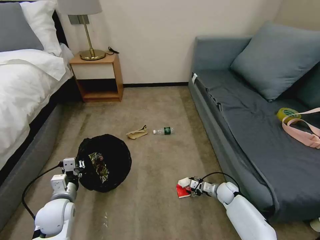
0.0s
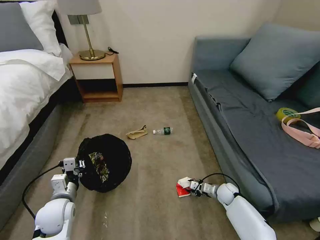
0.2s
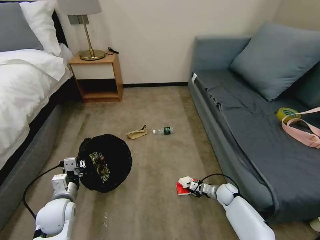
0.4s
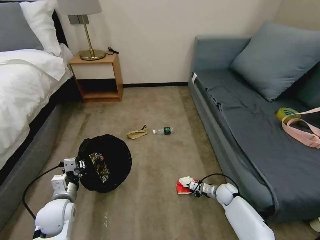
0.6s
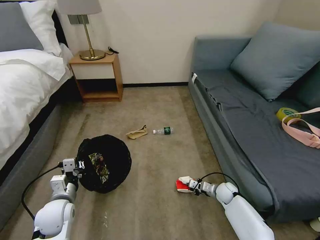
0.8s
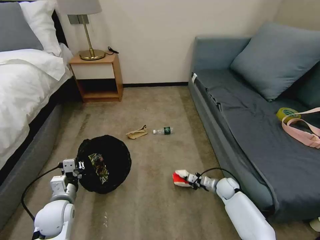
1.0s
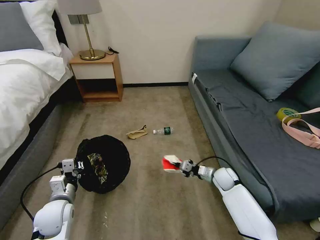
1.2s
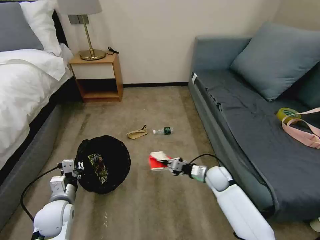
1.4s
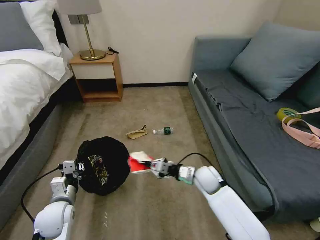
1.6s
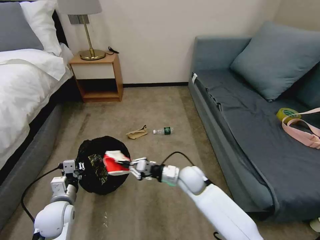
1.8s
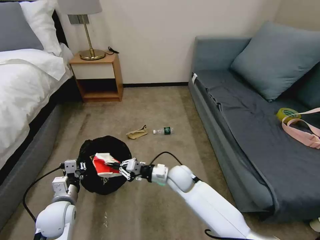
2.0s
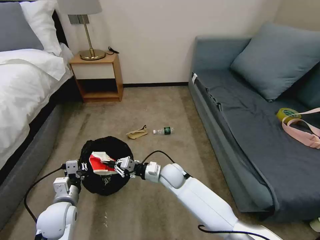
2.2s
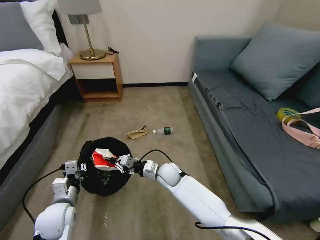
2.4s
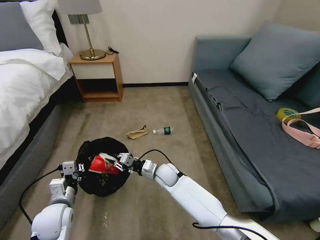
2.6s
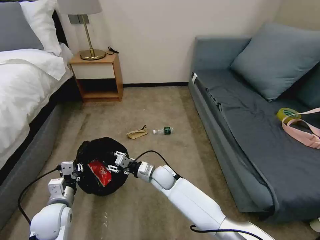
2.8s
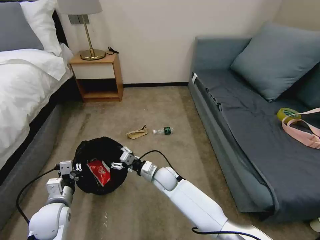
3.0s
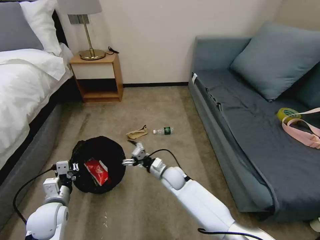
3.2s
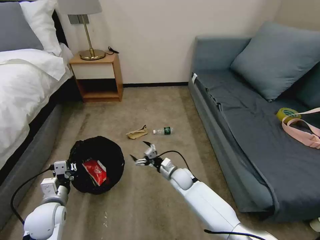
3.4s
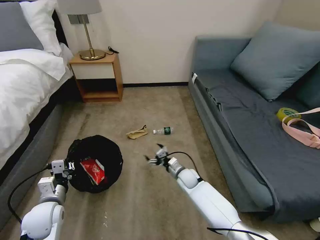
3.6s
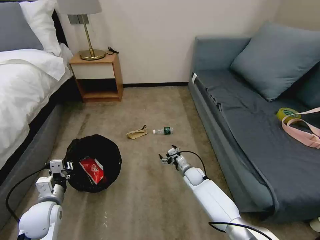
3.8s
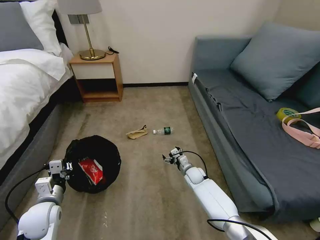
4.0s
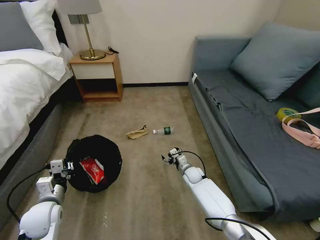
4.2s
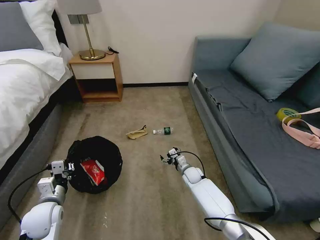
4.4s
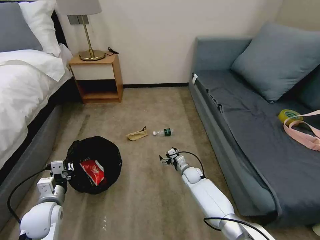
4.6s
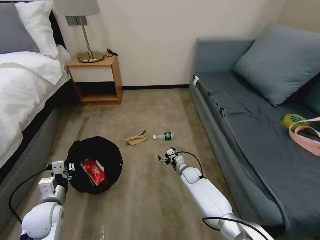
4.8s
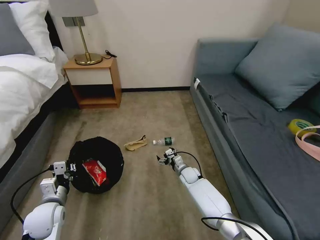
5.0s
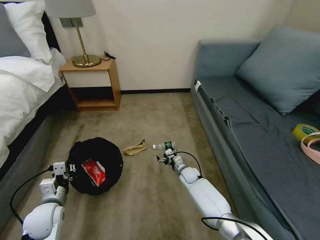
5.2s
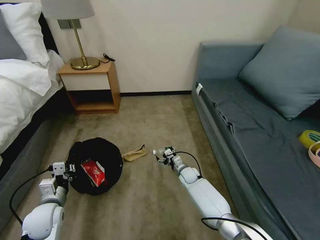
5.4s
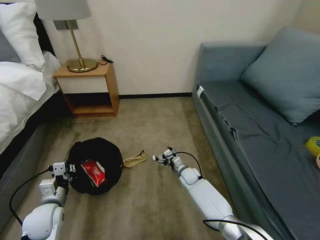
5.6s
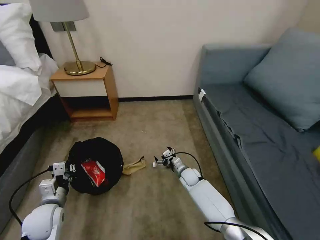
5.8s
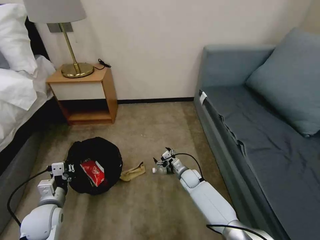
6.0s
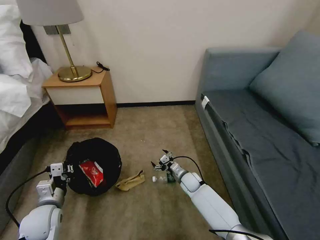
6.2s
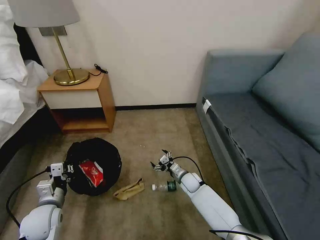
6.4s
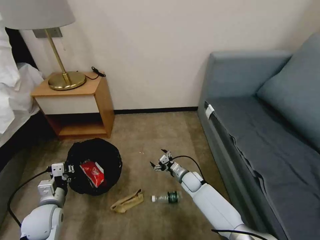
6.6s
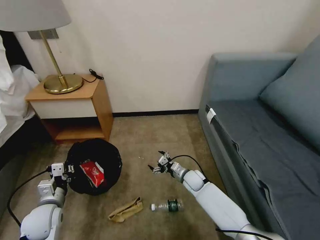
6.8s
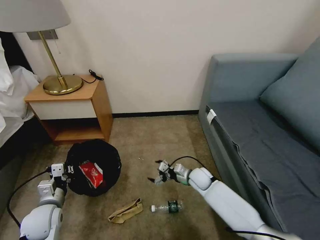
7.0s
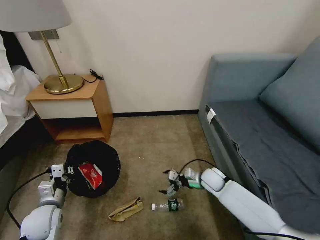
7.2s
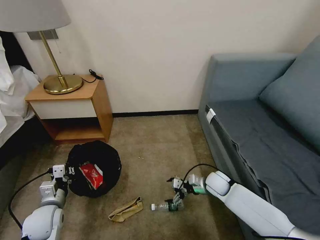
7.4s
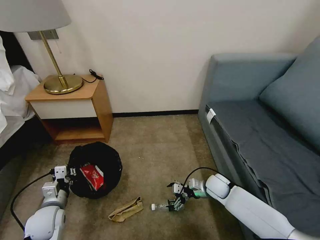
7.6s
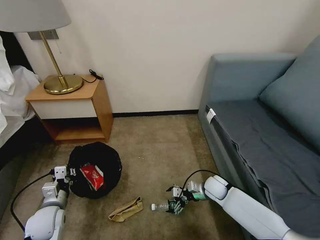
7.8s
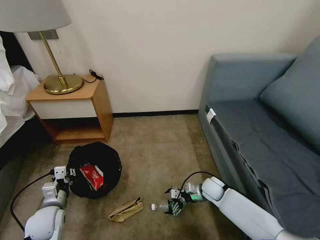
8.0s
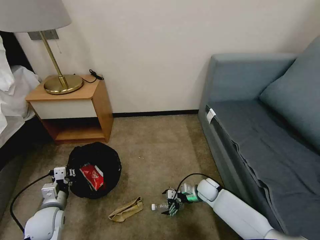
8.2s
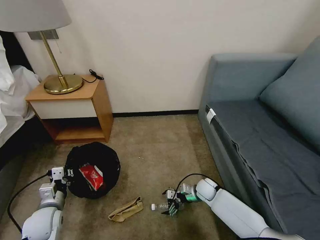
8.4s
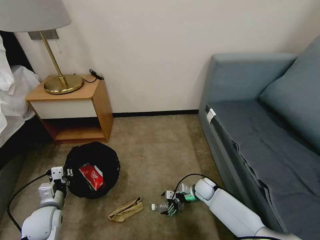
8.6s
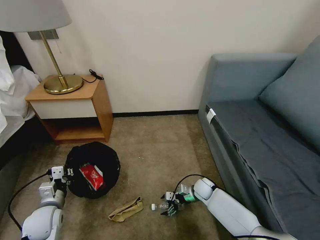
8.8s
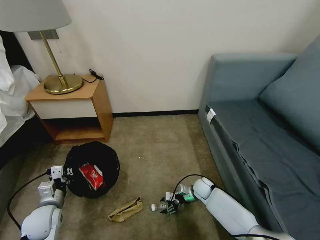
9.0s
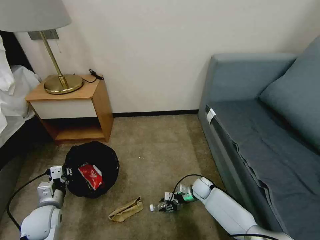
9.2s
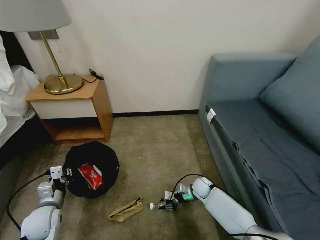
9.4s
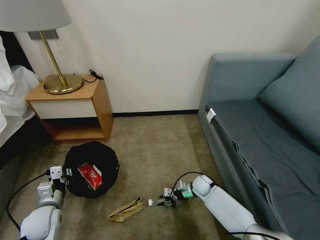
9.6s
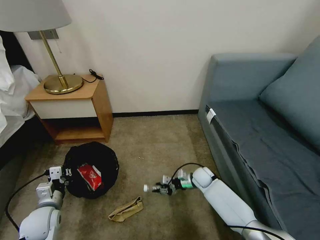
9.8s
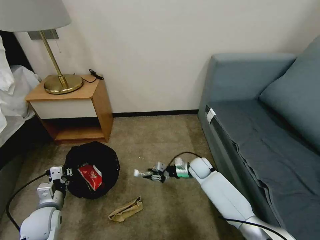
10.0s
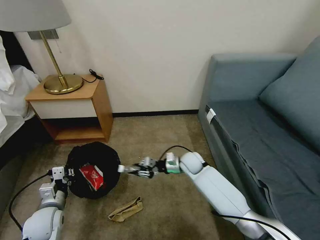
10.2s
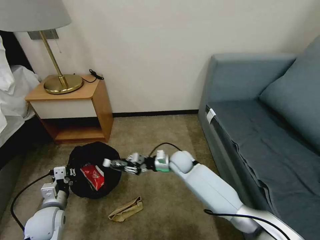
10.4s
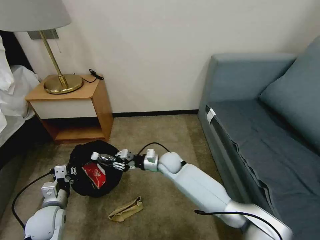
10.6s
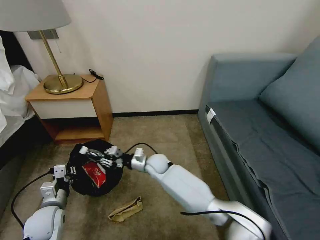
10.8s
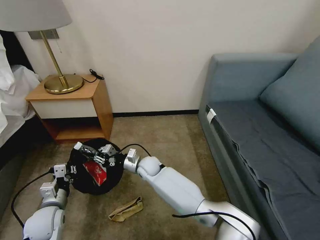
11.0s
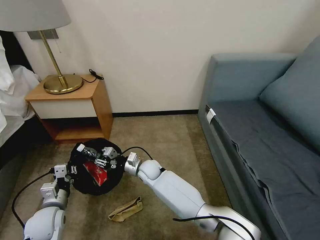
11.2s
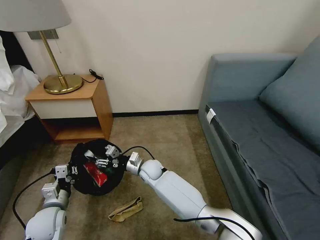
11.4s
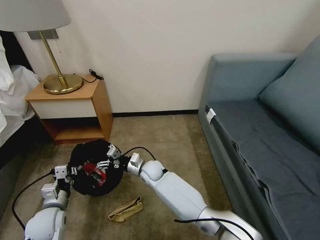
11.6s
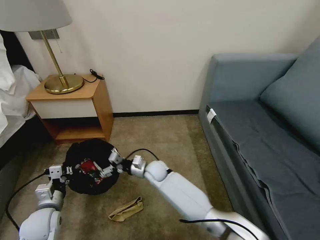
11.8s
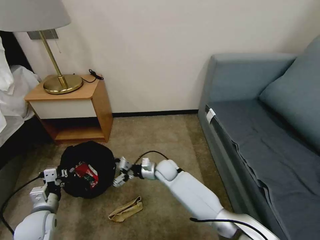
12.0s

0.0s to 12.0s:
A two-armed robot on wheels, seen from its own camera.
Task of the whole recording: Pick up the trash bin, then pick up the garbage on the floor and place it into the trash bin.
0.0s to 1.6s: The right gripper travels upward and to the left by about 20 cm, and closes up.
1.6s to 3.0s: The right gripper travels to the left by approximately 15 cm, and opens up.
3.0s to 4.4s: The right gripper shifts approximately 20 cm to the right, downward and forward.
6.0s to 7.6s: The right gripper heads to the right, upward and backward, covering approximately 10 cm.
7.6s to 9.0s: The right gripper is displaced downward by roughly 10 cm, and closes.
9.0s to 10.4s: The right gripper shifts some 20 cm upward and to the left, and closes its fingers.
10.4s to 12.0s: The right gripper is displaced to the left by roughly 5 cm, and opens.

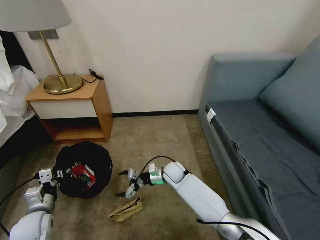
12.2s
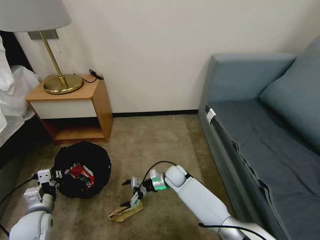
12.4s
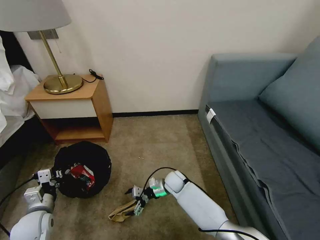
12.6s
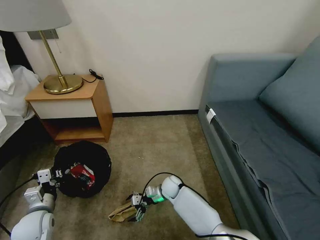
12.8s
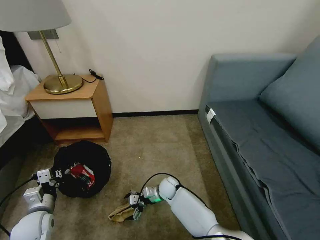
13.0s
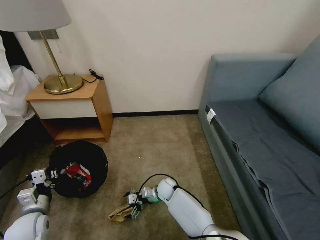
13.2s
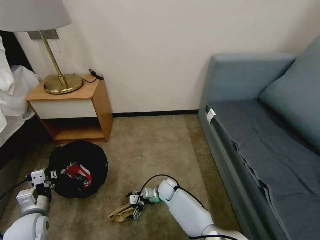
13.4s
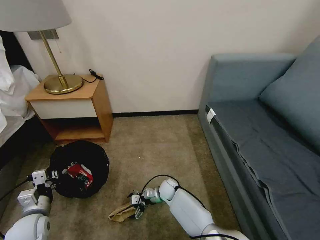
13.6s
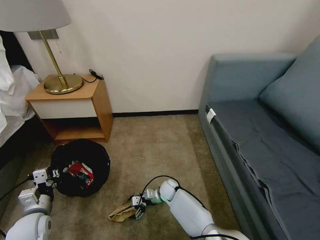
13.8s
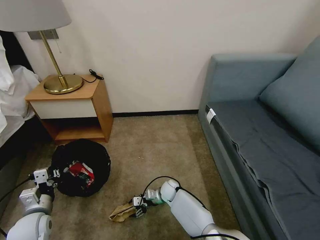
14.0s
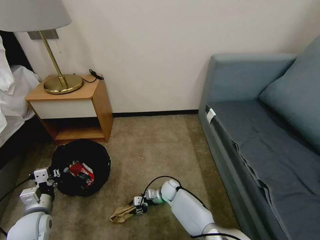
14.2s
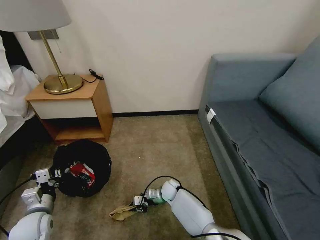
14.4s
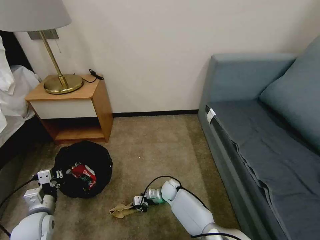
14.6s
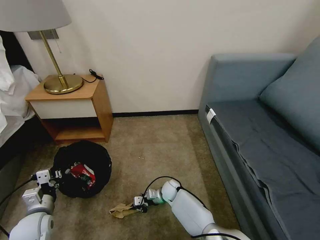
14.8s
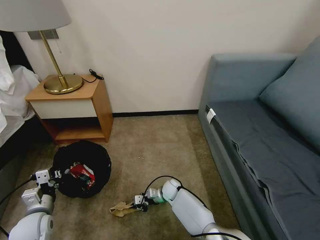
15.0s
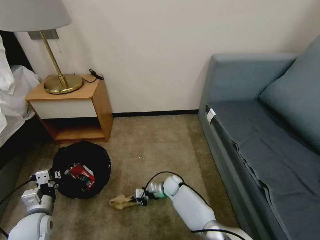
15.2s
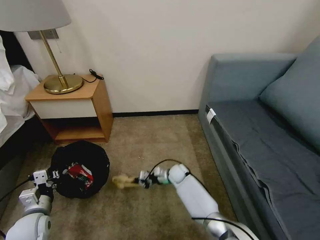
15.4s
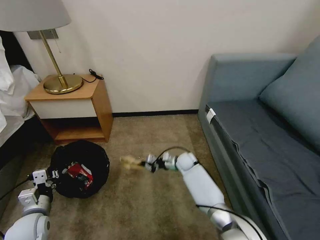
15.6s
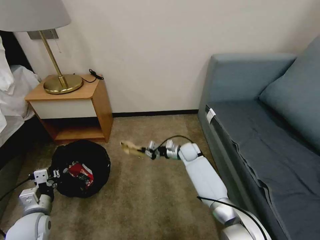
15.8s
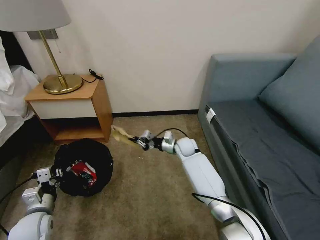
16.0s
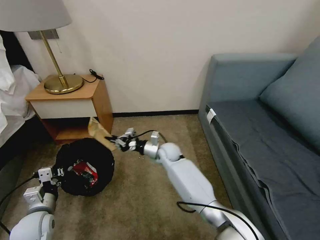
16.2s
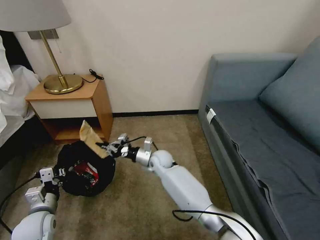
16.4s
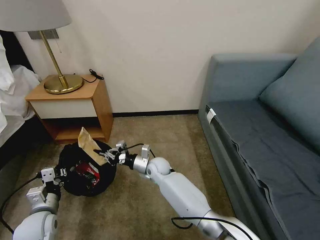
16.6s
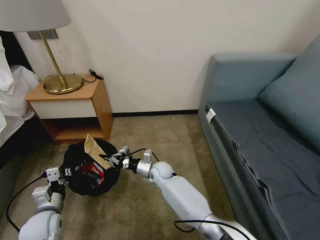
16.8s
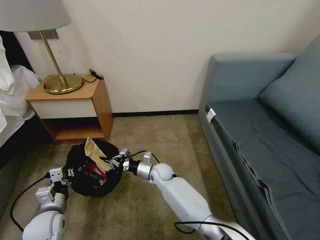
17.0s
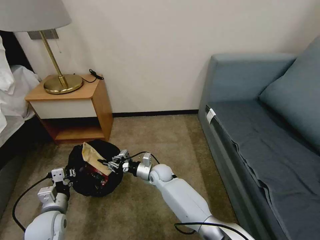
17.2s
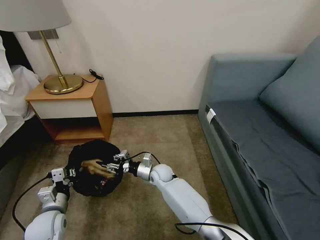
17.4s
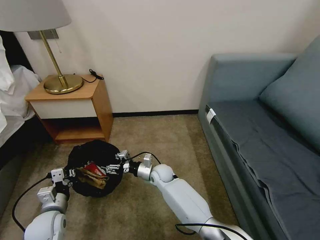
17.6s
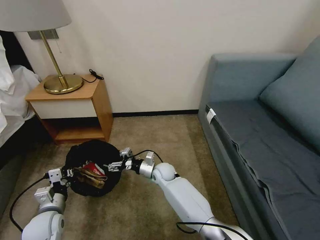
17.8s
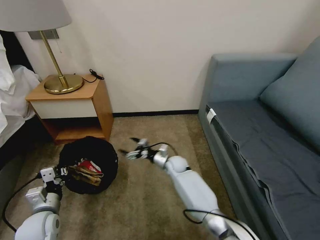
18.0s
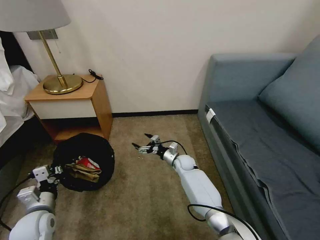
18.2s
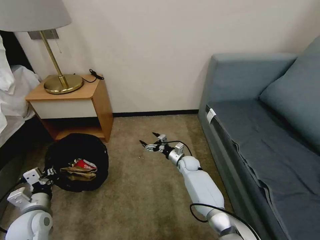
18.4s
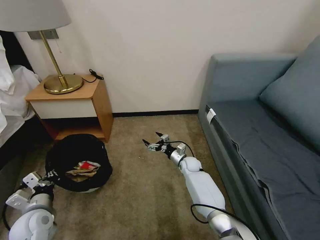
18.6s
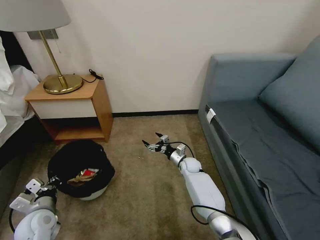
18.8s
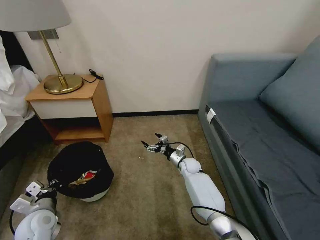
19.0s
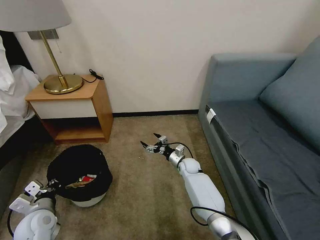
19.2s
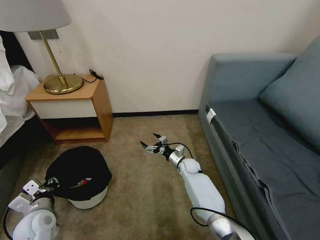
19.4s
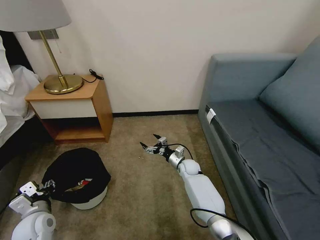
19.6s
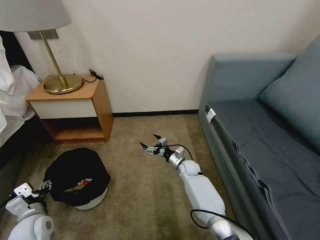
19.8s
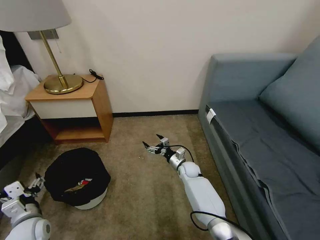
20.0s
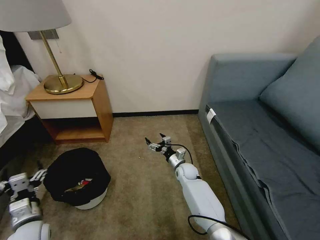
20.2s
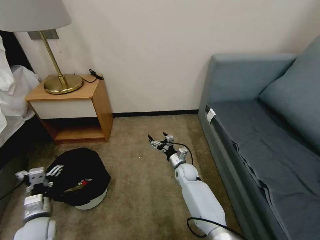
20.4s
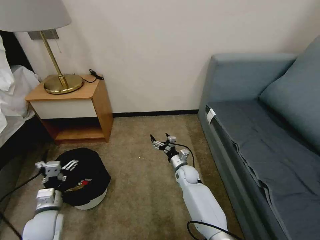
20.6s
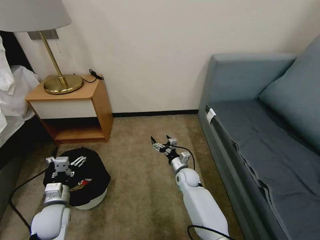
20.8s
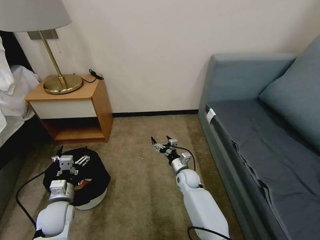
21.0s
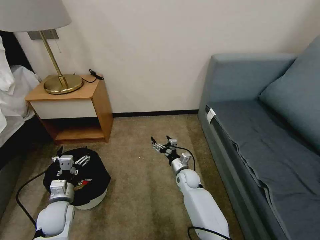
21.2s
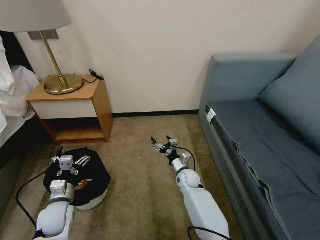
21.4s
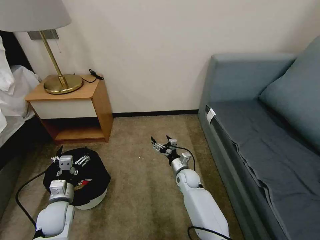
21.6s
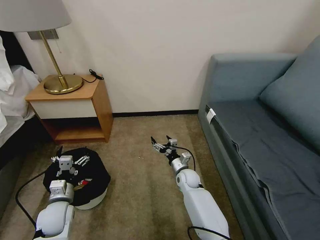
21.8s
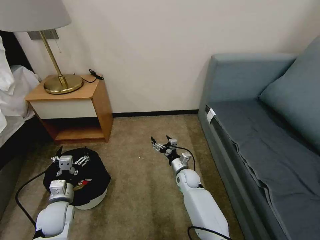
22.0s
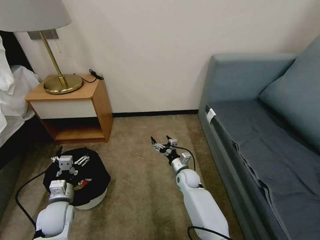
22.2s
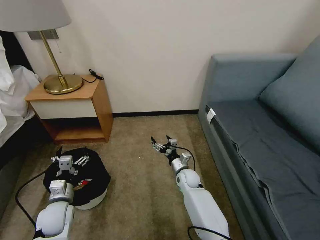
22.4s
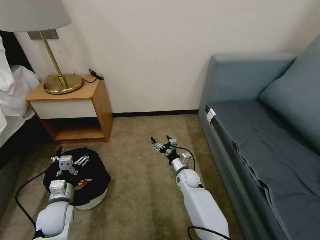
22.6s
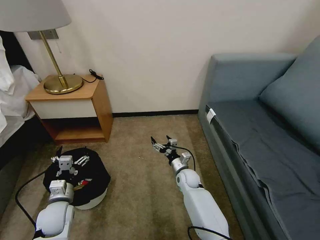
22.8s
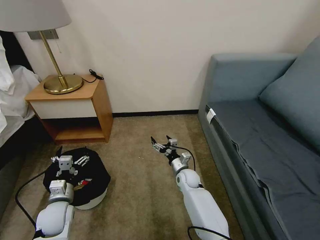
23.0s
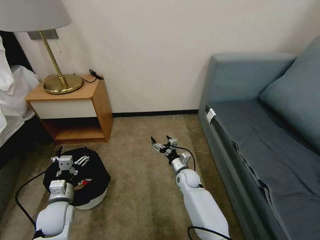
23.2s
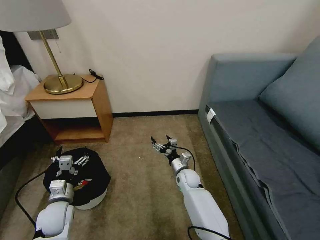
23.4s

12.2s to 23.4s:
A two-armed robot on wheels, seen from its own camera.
Task of the whole recording: Pick up the trash bin, then pick up the garbage on the floor and place it into the trash bin.
12.2s to 13.8s: The right gripper travels downward by approximately 10 cm.
13.8s to 15.4s: The right gripper travels forward by about 5 cm, and closes up.
15.4s to 17.0s: The right gripper is displaced to the left and upward by approximately 10 cm.
17.0s to 18.6s: The right gripper travels to the right and forward by approximately 15 cm, and opens.
18.6s to 20.2s: The left gripper opens.
20.2s to 21.8s: The left gripper is displaced forward by roughly 5 cm.
21.8s to 23.4s: Both grippers stay about where they are.
